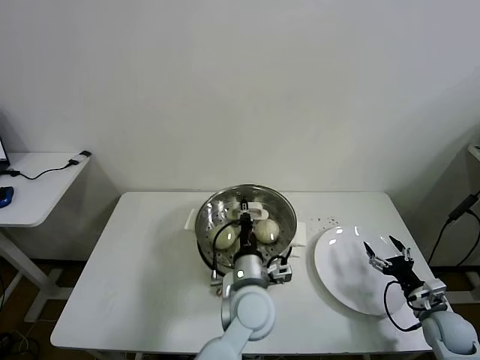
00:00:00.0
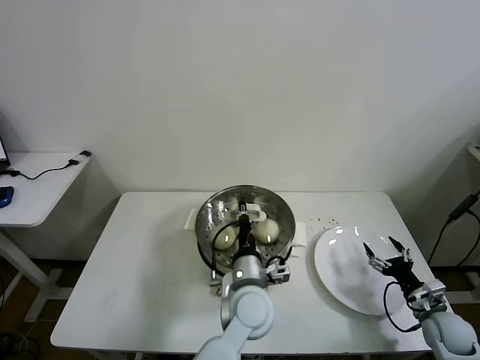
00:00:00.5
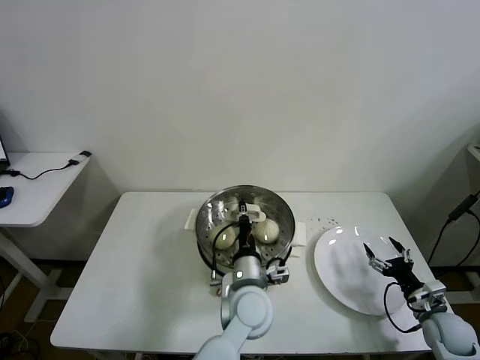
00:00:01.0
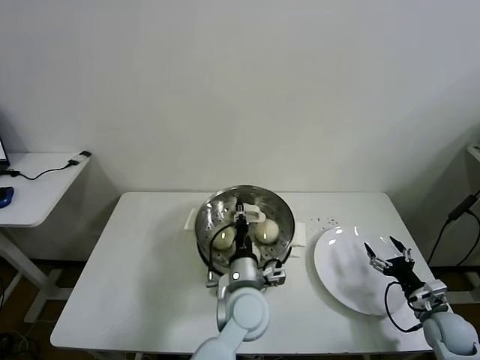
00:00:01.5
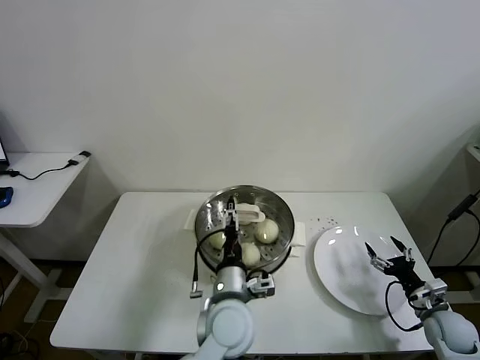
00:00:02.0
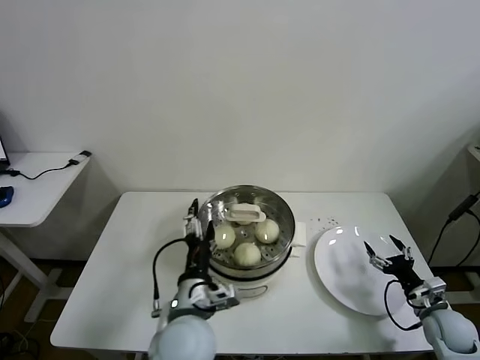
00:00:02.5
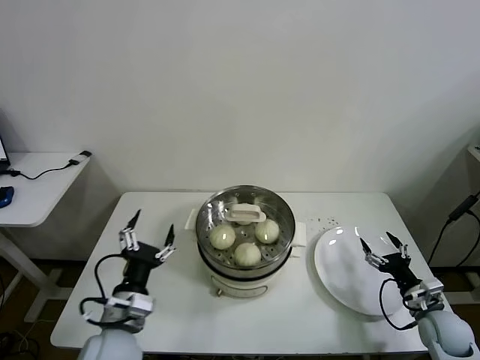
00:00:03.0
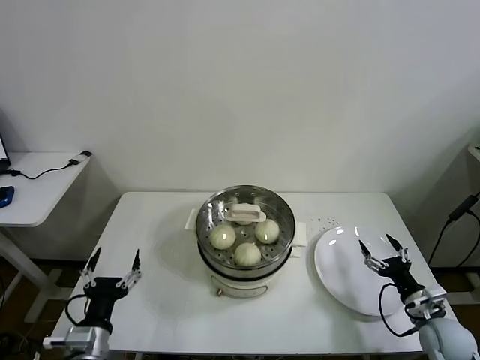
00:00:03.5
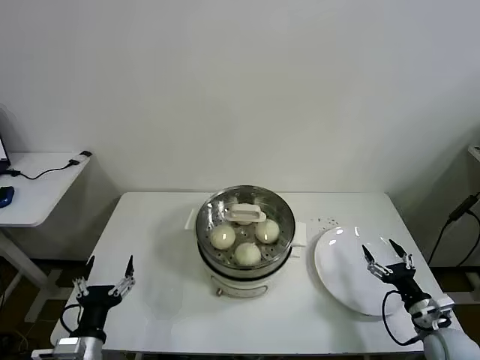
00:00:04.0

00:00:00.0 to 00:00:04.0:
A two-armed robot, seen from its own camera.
Task of the whole recording: take steamed baozi put them in steamer then cover it.
00:00:00.0 to 00:00:02.0: The left gripper opens its fingers.
00:00:02.0 to 00:00:04.0: The left gripper is displaced to the left and backward by approximately 30 cm. The right gripper moves some 5 cm.
